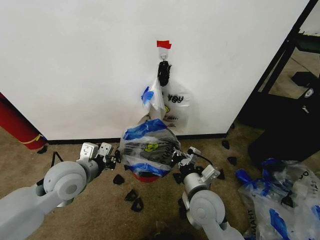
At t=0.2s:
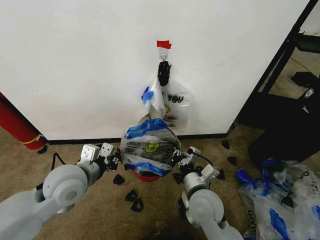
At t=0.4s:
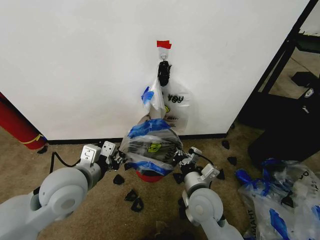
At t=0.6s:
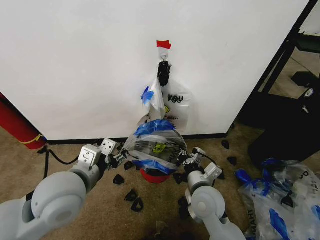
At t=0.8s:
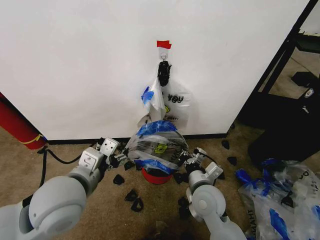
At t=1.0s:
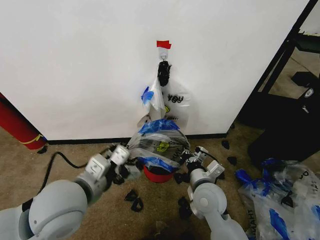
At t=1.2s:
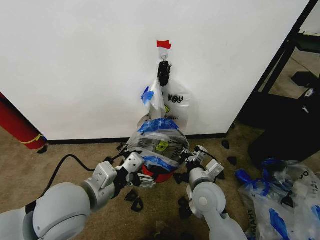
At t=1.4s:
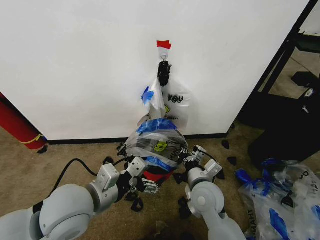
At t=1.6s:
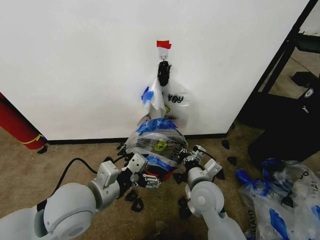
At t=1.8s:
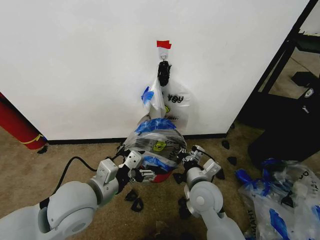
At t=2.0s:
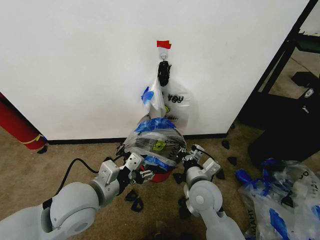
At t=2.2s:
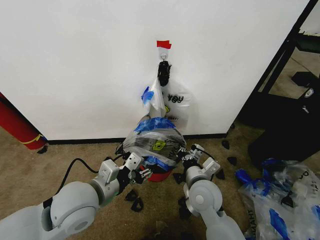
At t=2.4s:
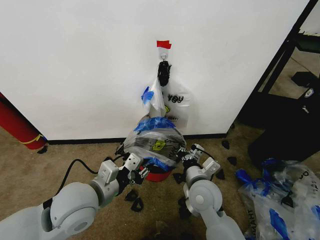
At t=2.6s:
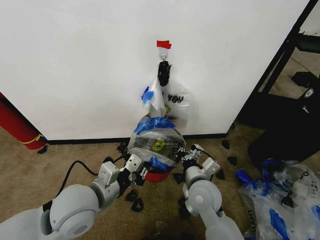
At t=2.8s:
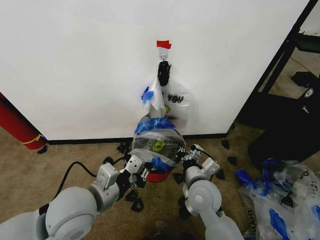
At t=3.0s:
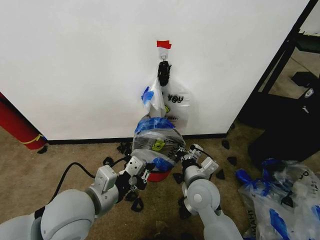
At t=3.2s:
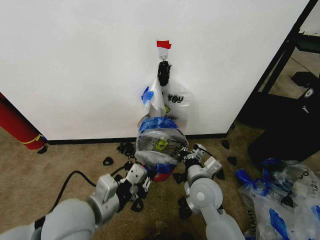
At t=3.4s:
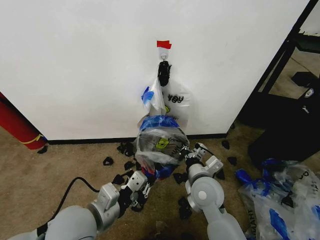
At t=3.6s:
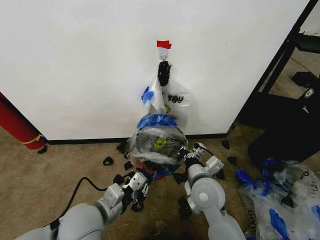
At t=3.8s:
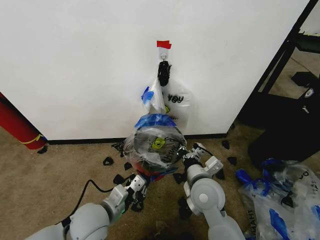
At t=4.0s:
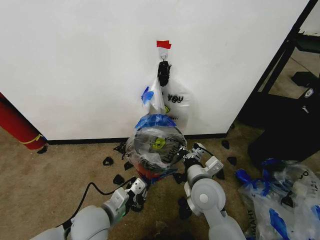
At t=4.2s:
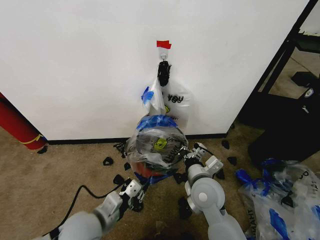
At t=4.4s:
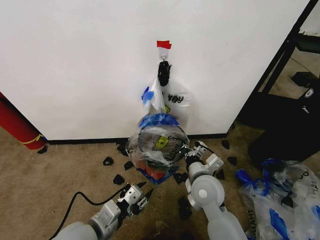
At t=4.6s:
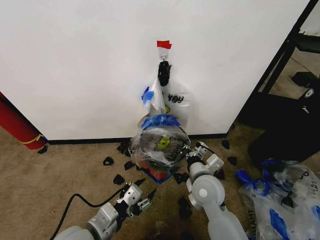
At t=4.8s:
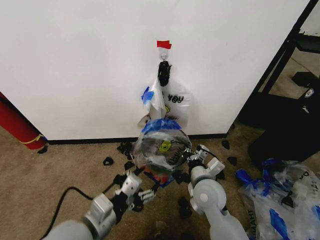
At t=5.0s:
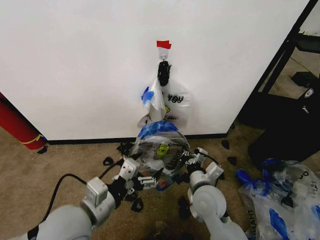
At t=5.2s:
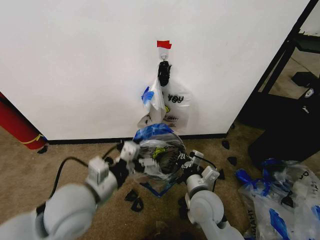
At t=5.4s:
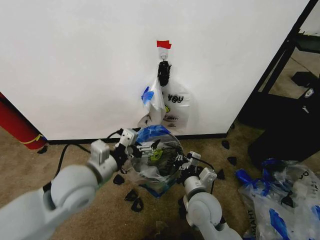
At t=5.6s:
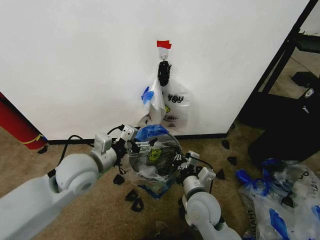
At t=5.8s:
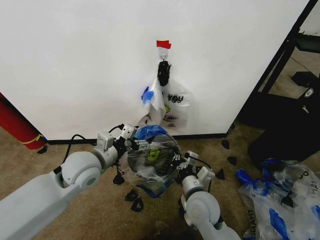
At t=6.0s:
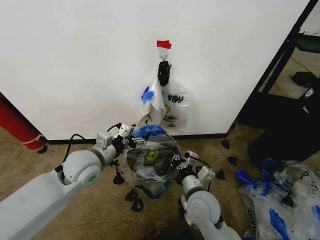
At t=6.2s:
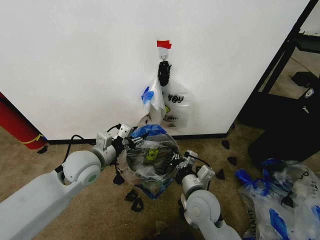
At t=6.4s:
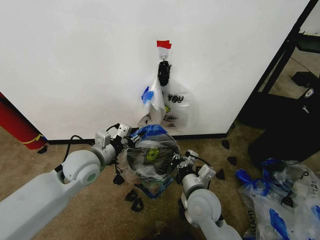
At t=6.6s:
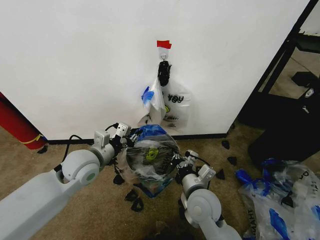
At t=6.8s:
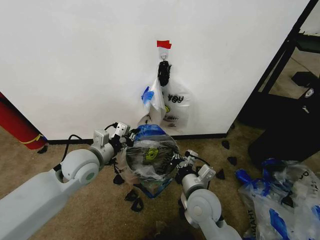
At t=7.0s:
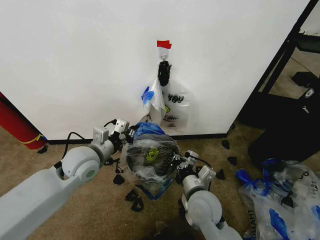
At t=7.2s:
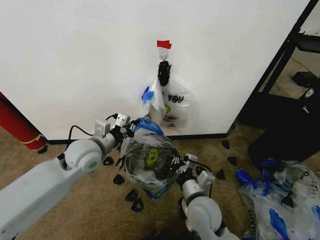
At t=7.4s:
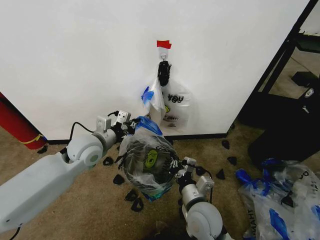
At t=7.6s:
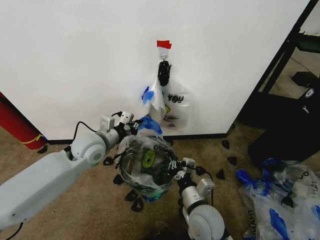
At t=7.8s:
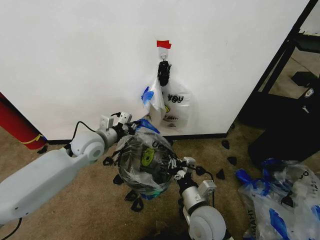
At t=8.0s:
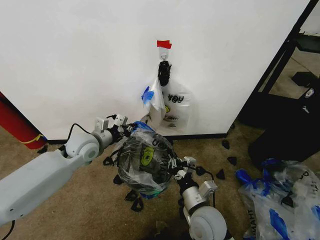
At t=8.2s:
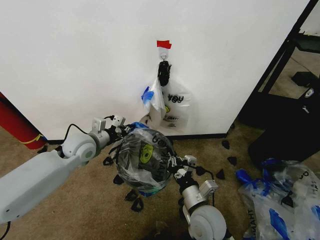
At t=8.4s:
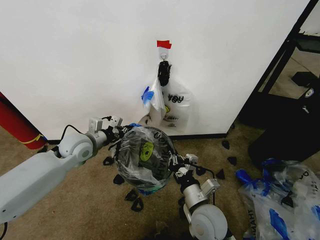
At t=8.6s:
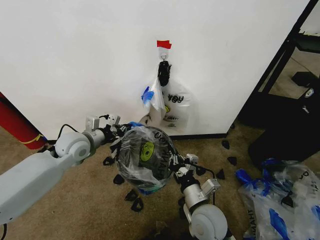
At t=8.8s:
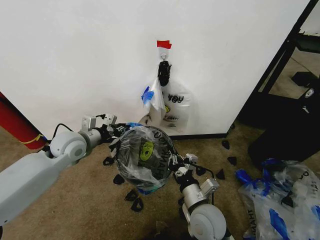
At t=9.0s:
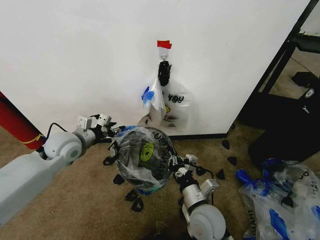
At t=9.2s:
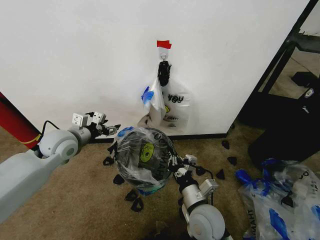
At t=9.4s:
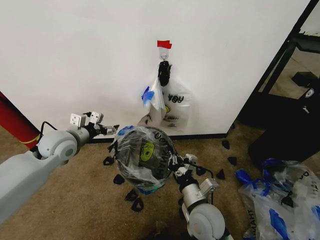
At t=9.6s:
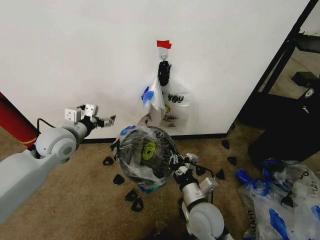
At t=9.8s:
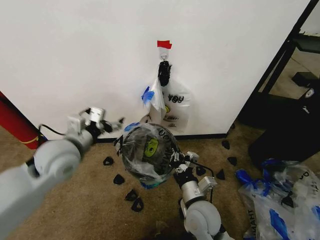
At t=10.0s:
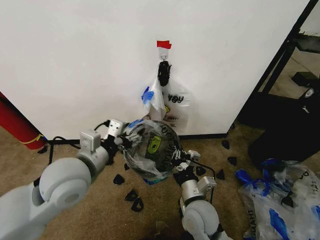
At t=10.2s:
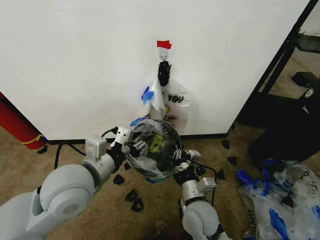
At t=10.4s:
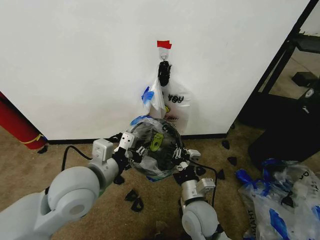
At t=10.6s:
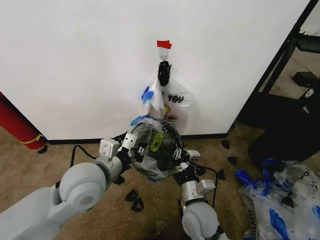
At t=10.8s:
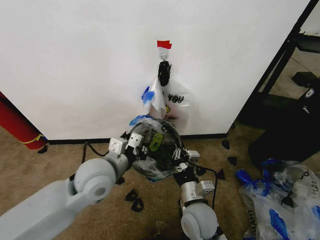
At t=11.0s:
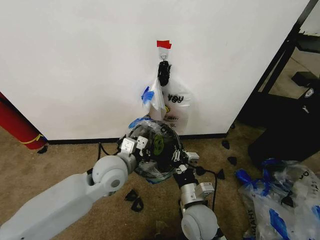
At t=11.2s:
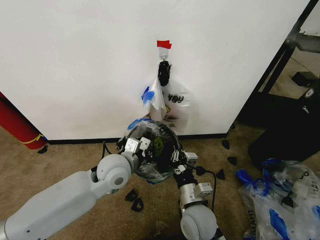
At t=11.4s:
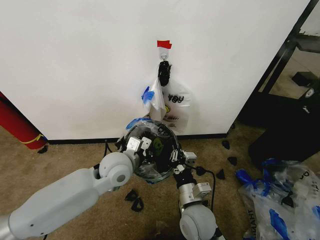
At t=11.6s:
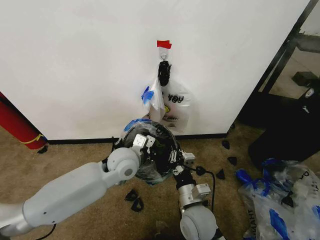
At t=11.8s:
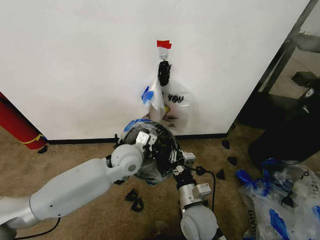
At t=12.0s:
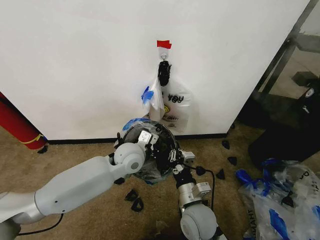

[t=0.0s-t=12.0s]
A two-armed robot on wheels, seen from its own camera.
Task of the whole recording: Pick up the garbage bag from the wall and place it over the trash bin.
t=0.0s to t=1.6s: The left gripper moves backward and to the right, roughly 10 cm, and opens up.
t=1.6s to t=3.0s: The left gripper closes.
t=3.0s to t=4.4s: The left gripper shifts approximately 10 cm downward.
t=4.4s to t=6.0s: The left gripper heads forward, covering roughly 15 cm, and opens.
t=6.0s to t=7.6s: The left gripper travels forward by roughly 5 cm, and closes.
t=7.6s to t=9.0s: The left gripper heads to the left, covering some 10 cm, and opens up.
t=9.0s to t=10.4s: The left gripper is displaced backward and to the right by about 20 cm, and opens and closes again.
t=10.4s to t=12.0s: The left gripper is displaced forward, downward and to the right by about 20 cm.

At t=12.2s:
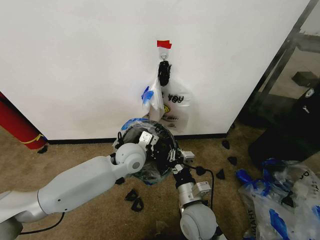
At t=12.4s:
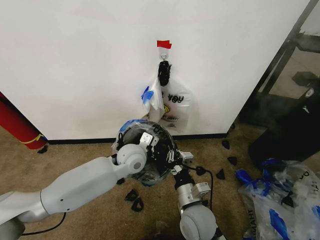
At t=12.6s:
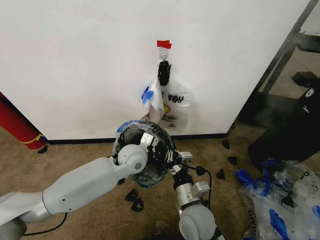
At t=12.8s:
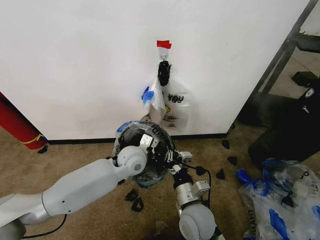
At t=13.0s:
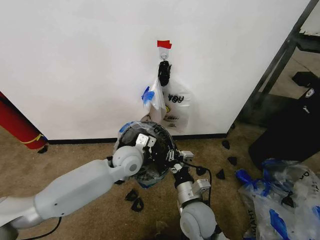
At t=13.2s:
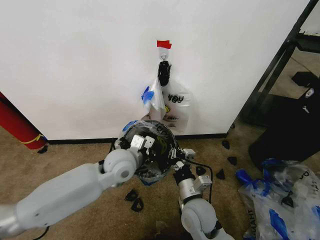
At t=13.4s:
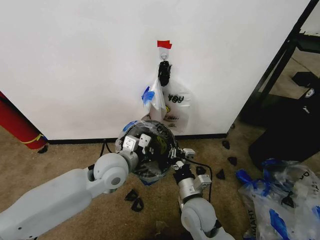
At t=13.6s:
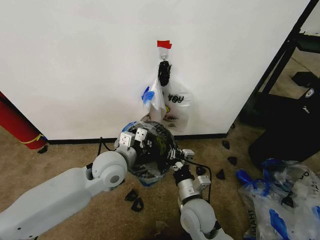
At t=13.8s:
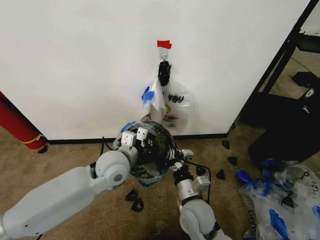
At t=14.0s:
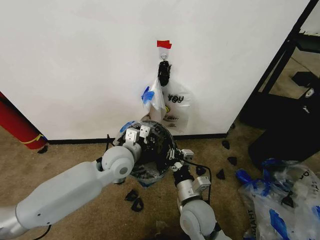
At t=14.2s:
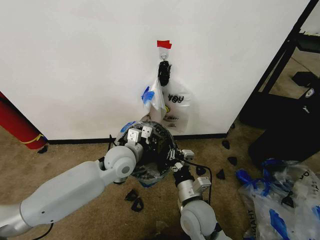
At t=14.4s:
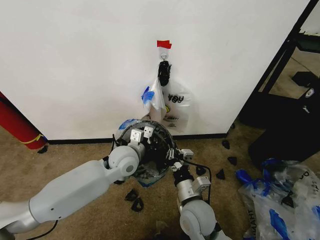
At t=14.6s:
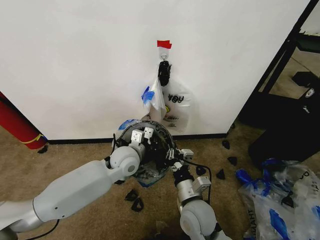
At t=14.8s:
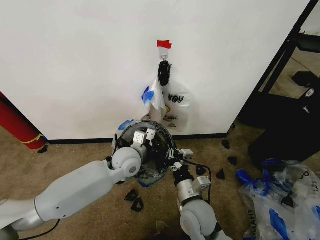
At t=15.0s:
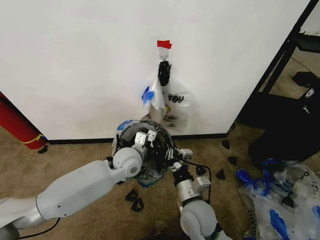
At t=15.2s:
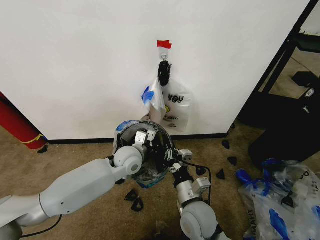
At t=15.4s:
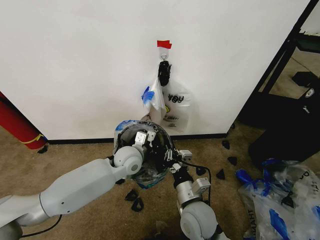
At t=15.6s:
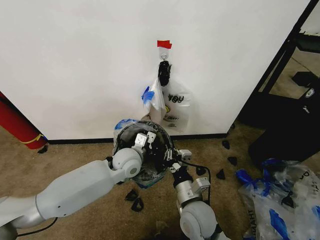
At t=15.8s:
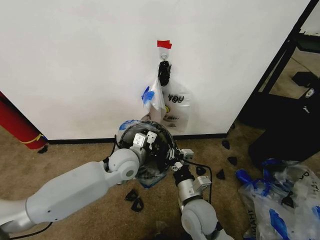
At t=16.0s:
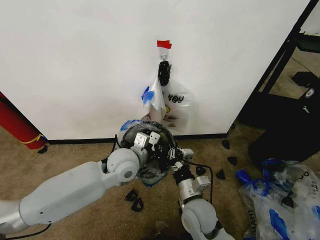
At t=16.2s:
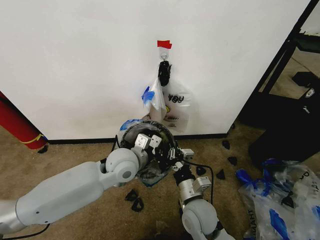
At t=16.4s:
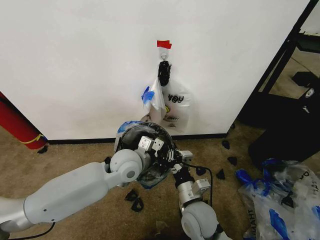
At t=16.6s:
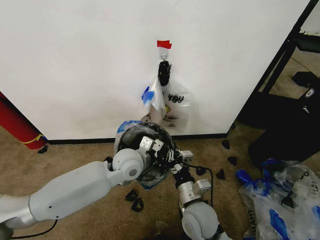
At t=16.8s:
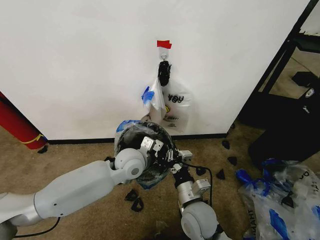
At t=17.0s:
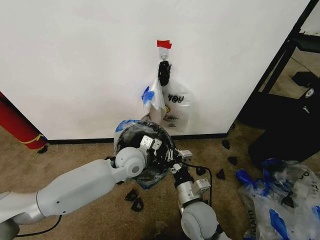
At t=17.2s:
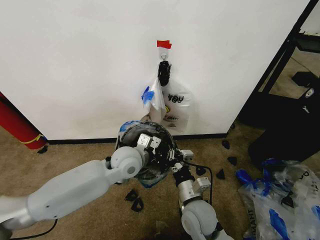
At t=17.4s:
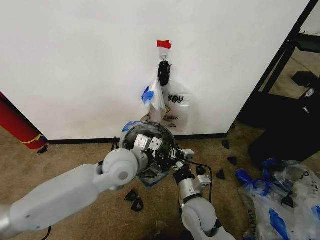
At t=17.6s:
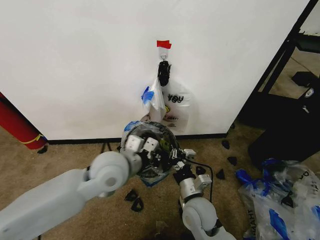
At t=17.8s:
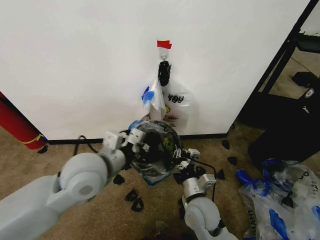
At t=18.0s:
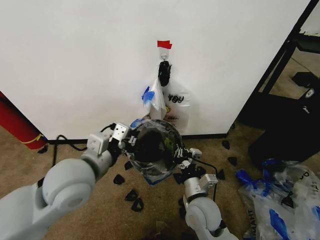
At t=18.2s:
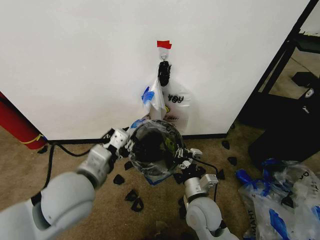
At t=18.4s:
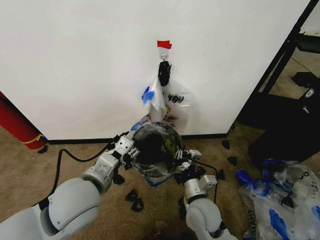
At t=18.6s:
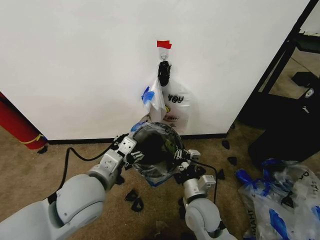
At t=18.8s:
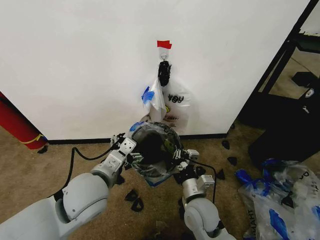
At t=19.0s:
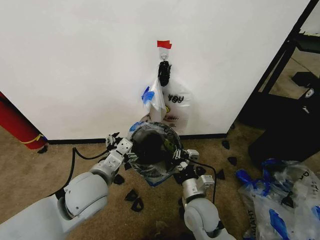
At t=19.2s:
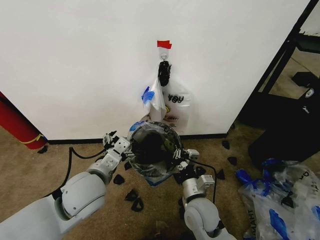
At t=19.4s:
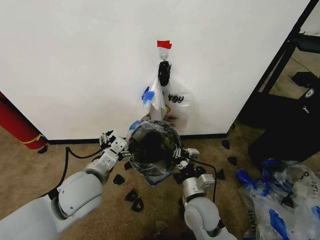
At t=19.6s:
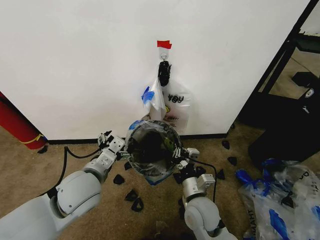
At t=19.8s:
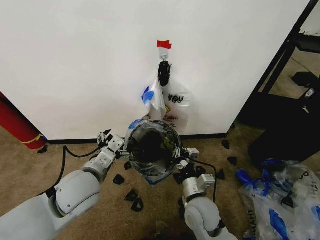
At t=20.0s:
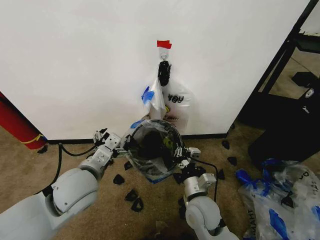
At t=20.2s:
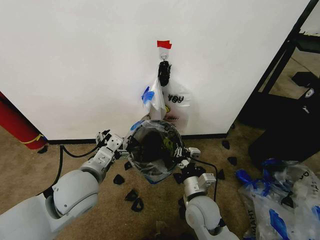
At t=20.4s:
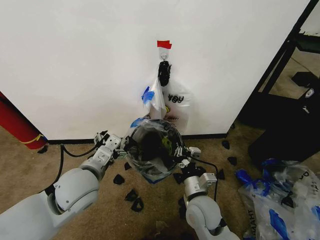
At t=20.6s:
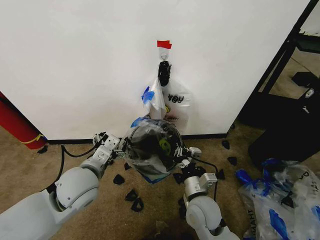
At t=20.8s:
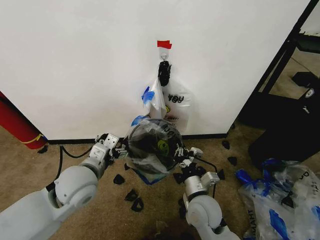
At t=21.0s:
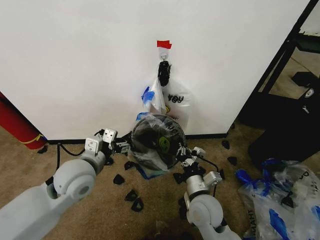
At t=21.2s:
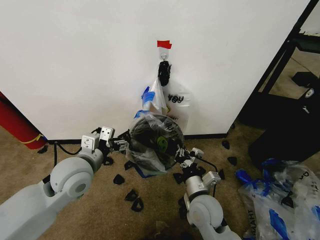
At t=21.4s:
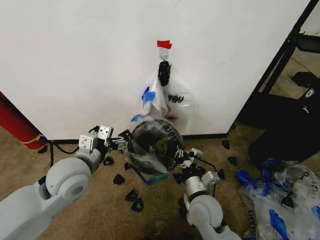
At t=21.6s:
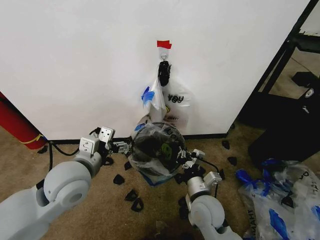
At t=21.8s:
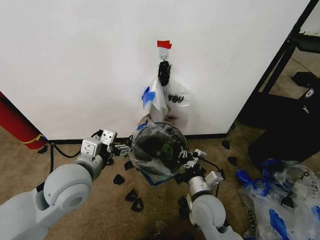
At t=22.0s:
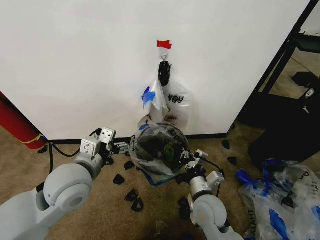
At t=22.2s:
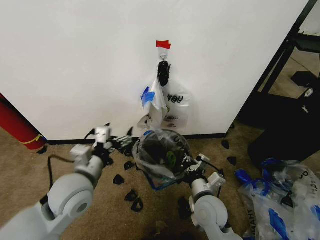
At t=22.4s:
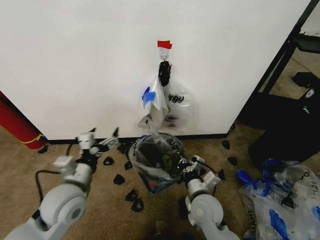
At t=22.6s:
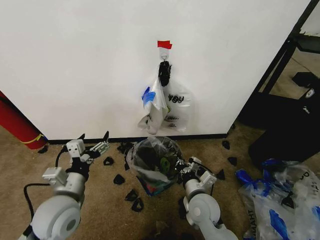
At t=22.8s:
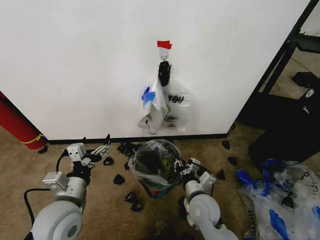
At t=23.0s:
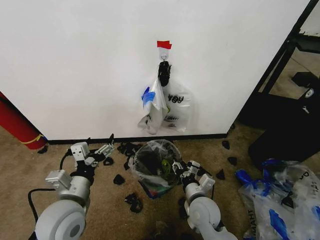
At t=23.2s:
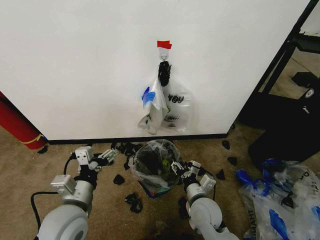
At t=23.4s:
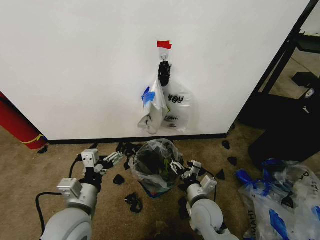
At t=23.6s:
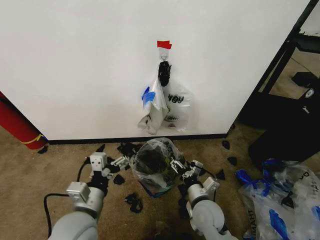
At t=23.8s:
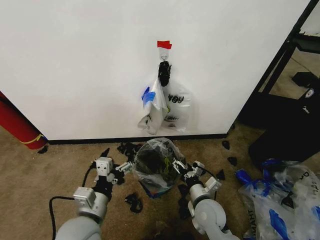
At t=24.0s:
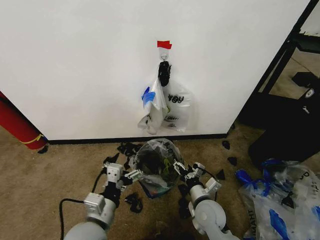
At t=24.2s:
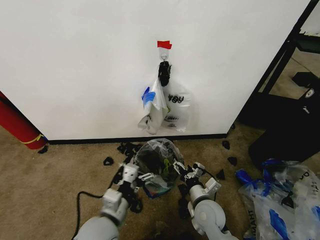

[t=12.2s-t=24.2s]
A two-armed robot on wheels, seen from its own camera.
Task of the whole recording: Pick up the garbage bag from the wall and place it over the trash bin.
t=12.2s to t=13.8s: The left gripper moves roughly 5 cm.
t=13.8s to t=15.2s: The left gripper travels forward and downward by roughly 10 cm.
t=16.6s to t=18.2s: The left gripper moves backward, to the left and upward, about 20 cm, and opens its fingers.
t=18.2s to t=19.8s: The left gripper shifts by about 5 cm, and opens up.
t=21.2s to t=22.6s: The left gripper heads backward and downward, covering some 10 cm.
t=22.6s to t=24.2s: The right gripper opens its fingers, while the left gripper is displaced to the right by about 10 cm.
